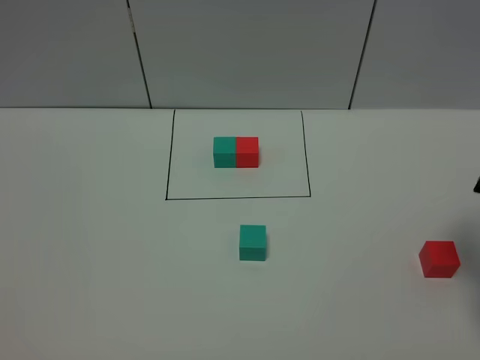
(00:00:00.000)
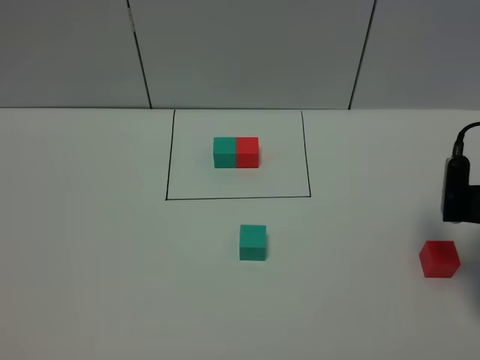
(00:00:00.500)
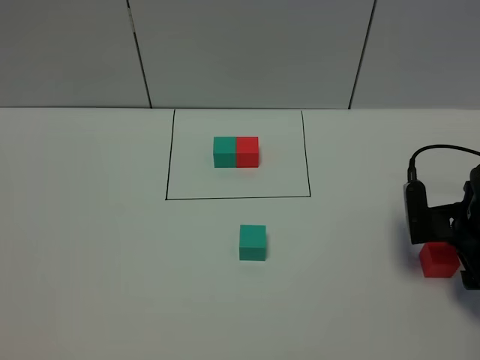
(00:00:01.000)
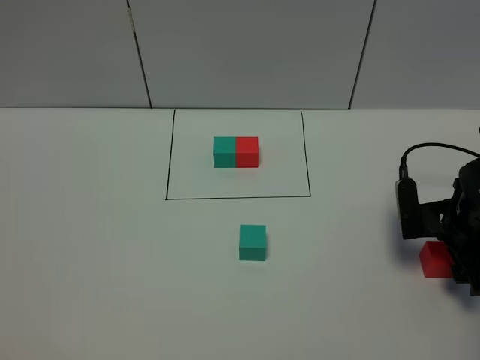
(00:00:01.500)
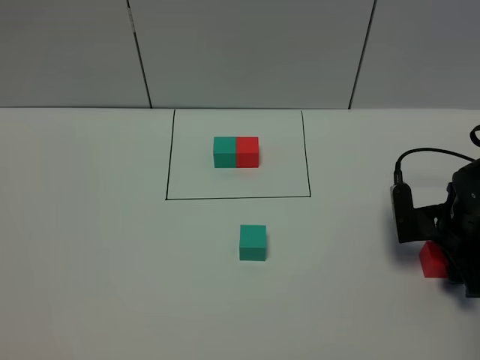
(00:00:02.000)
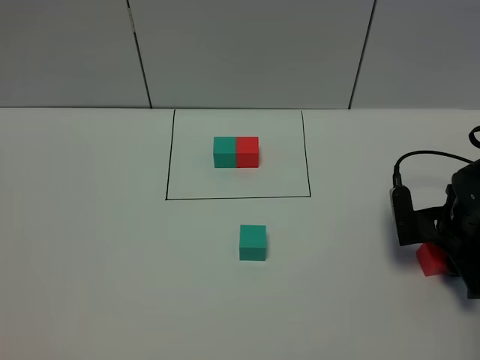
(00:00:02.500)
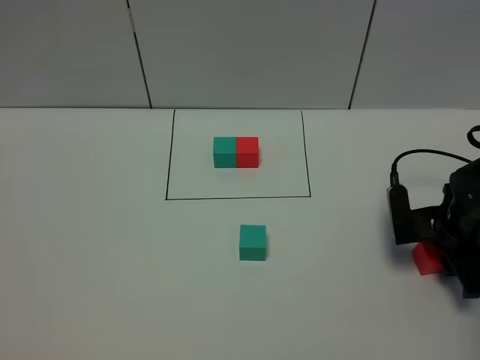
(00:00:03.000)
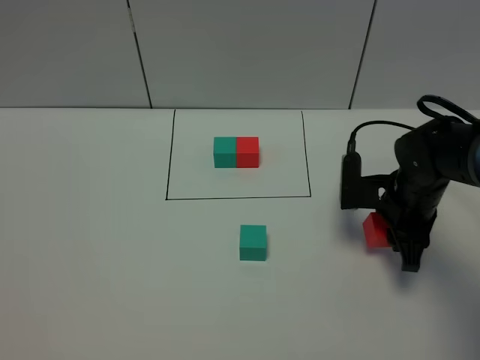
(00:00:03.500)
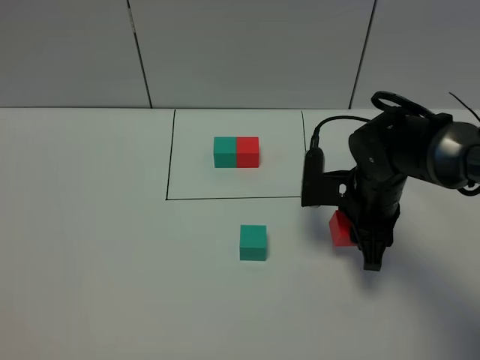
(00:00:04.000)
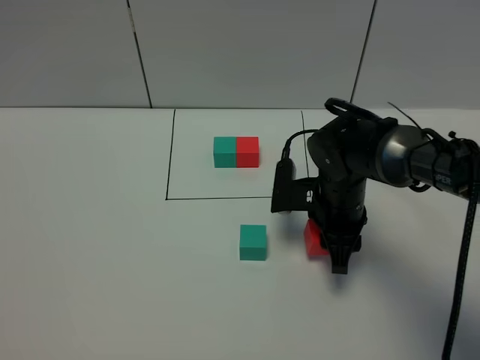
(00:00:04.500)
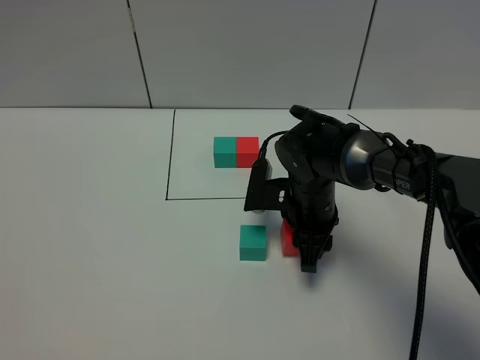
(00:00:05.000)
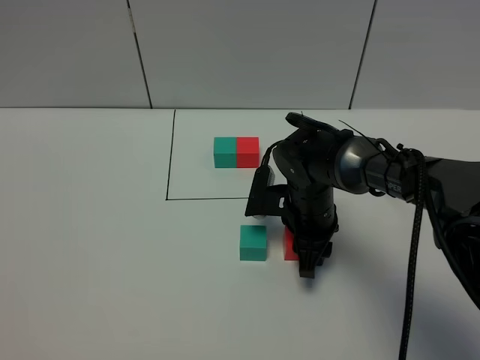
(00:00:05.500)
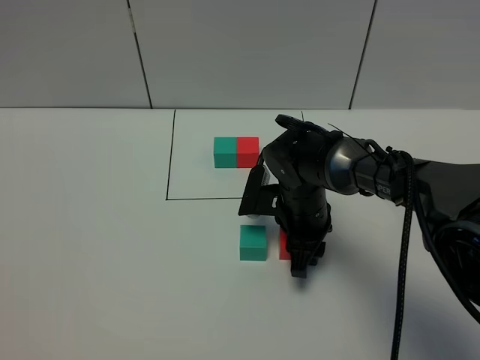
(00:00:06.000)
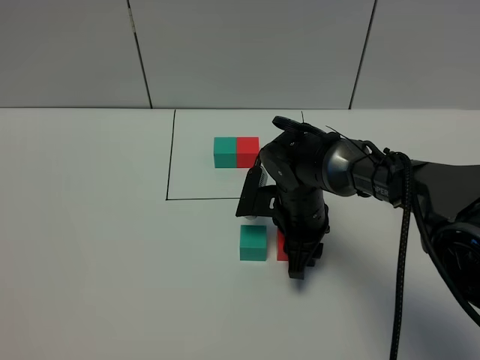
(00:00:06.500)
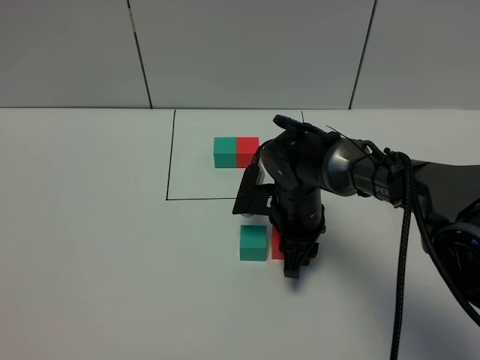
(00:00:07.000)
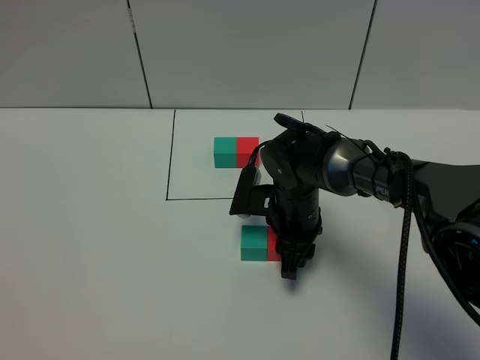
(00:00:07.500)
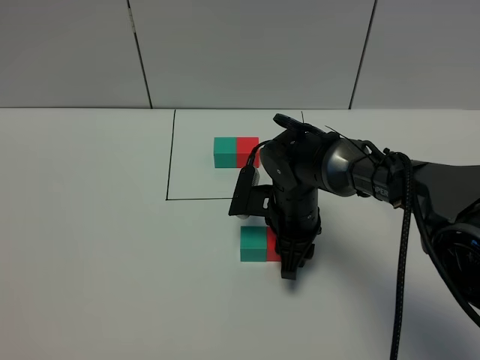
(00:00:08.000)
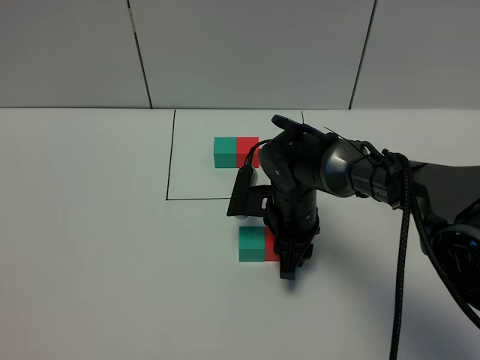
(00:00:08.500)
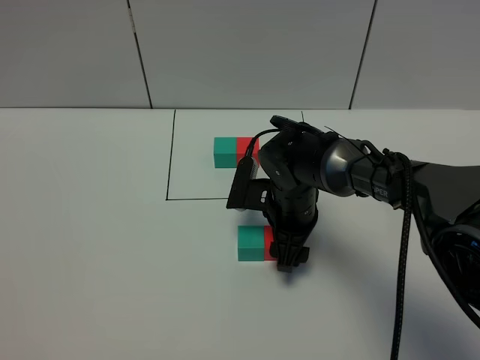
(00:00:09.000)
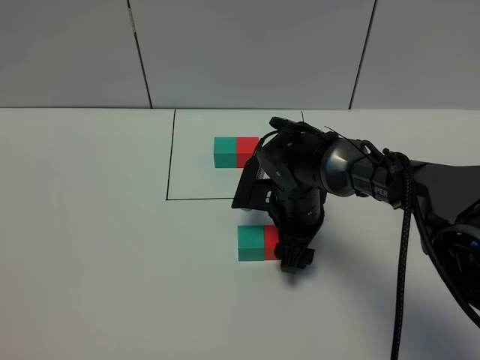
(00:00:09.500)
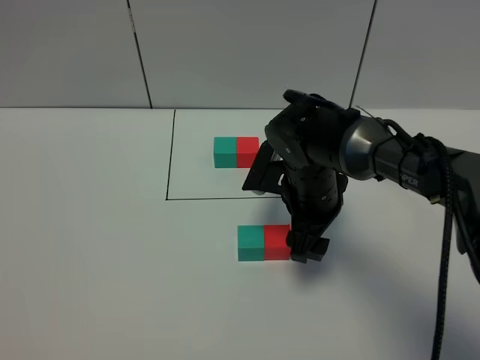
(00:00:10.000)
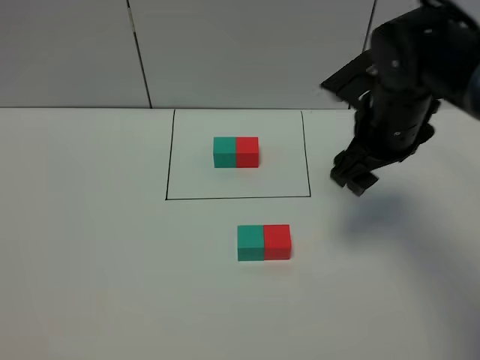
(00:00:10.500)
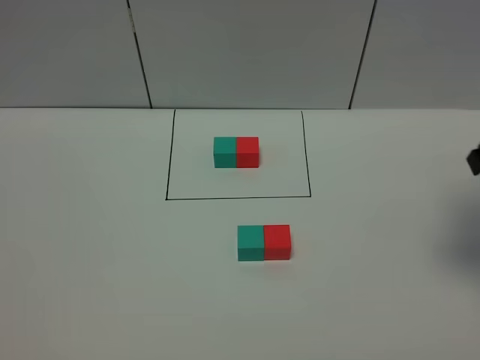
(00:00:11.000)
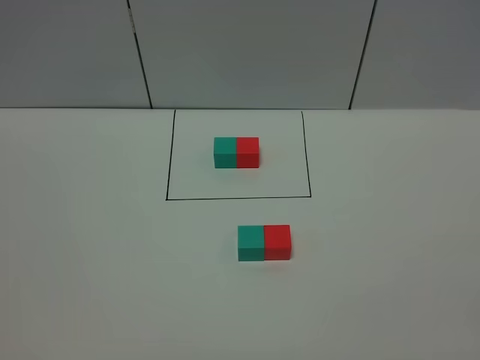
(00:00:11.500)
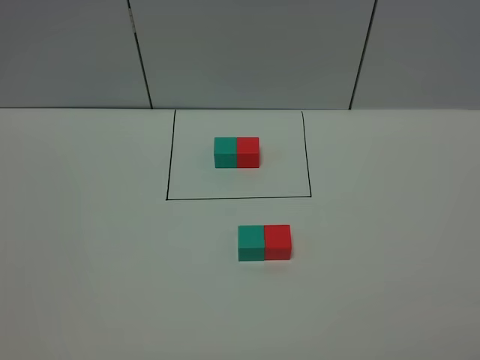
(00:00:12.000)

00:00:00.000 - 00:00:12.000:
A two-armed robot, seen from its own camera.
Task of the whole recording: According to the building block template in front, assemble the scattered blocks together.
Step, 00:00:00.000 - 00:00:09.000: Put the red cube on the right of the green cube.
00:00:00.000 - 00:00:02.000: The right gripper goes about 15 cm downward and forward.
00:00:02.000 - 00:00:04.000: The right gripper moves to the left, some 15 cm, and closes.
00:00:04.000 - 00:00:06.000: The right gripper travels to the left by about 10 cm.
00:00:06.000 - 00:00:08.000: Both grippers stay about where they are.
00:00:08.000 - 00:00:10.000: The right gripper shifts roughly 5 cm upward, and opens its fingers.
00:00:10.000 - 00:00:12.000: The right gripper heads backward, to the right and upward, covering some 40 cm.

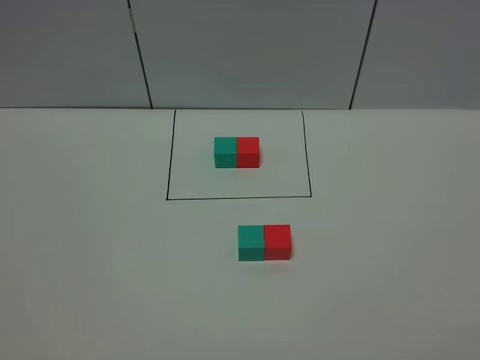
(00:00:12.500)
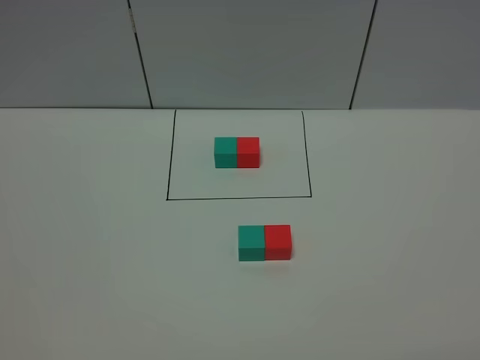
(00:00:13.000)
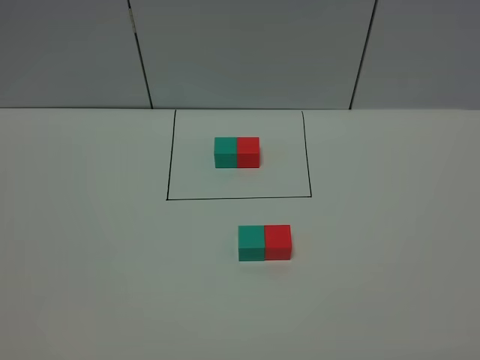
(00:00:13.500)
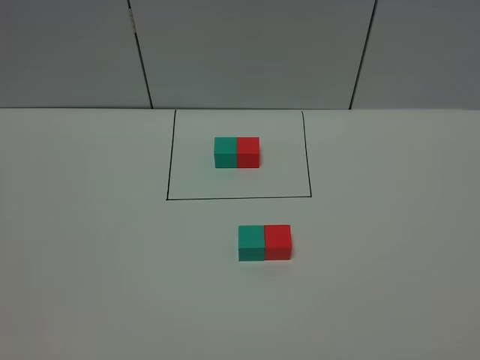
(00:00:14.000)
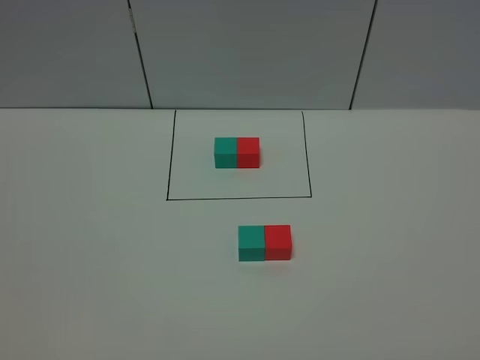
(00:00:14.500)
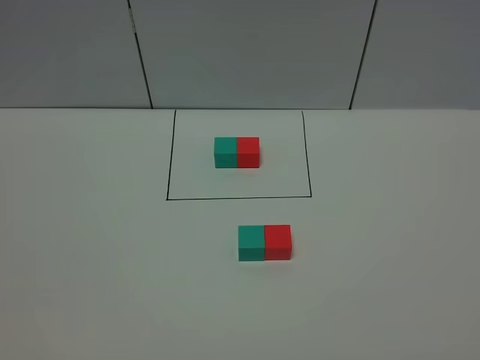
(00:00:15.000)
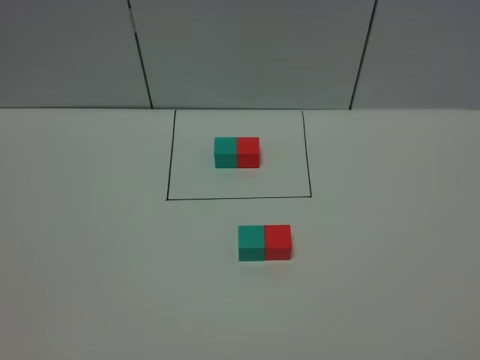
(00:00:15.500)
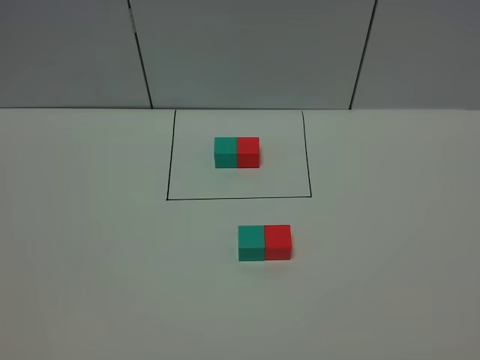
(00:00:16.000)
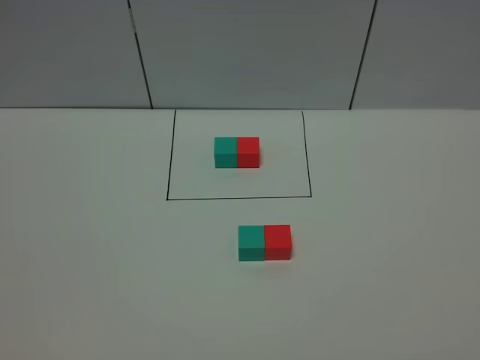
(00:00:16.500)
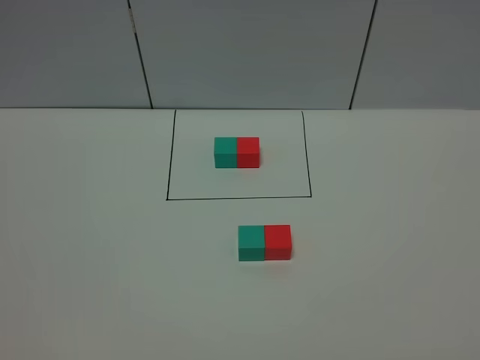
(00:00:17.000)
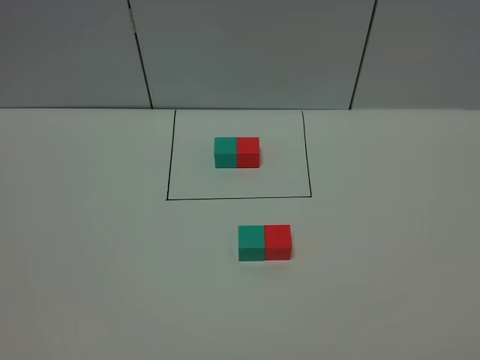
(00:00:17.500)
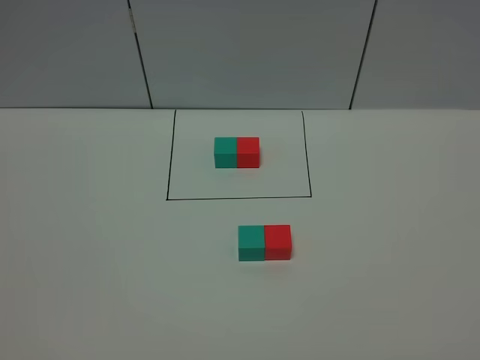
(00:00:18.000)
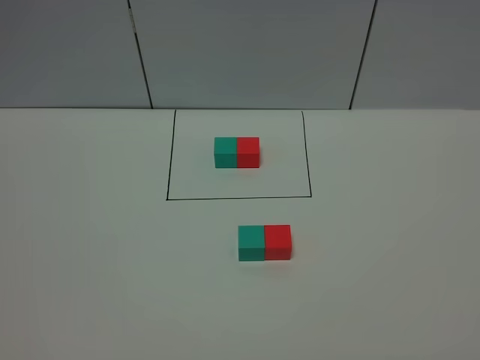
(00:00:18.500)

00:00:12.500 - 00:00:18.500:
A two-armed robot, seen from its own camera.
Task of the whole recording: According to the building block template in front, assemble the scattered blocks together.
00:00:14.500 - 00:00:18.500: Both grippers stay about where they are.
